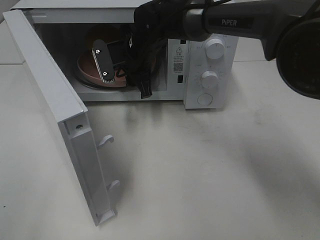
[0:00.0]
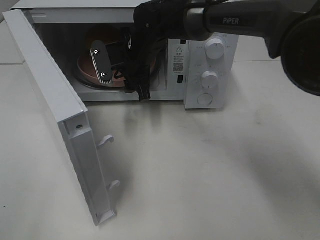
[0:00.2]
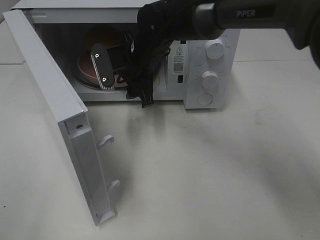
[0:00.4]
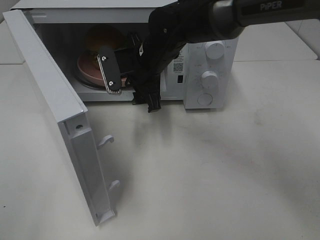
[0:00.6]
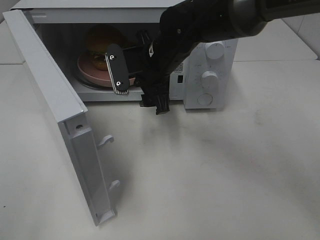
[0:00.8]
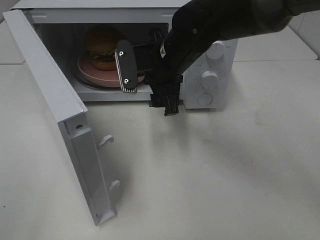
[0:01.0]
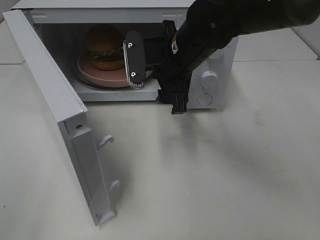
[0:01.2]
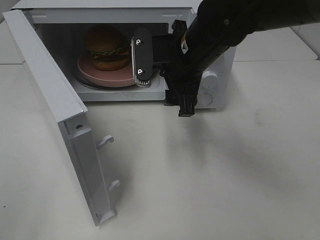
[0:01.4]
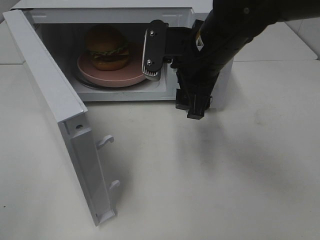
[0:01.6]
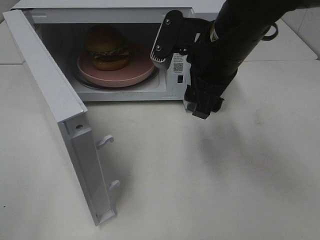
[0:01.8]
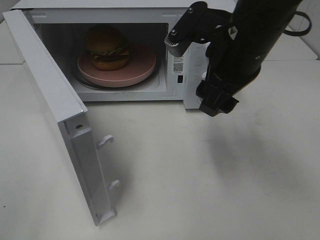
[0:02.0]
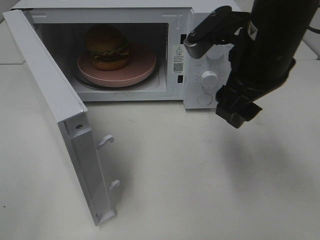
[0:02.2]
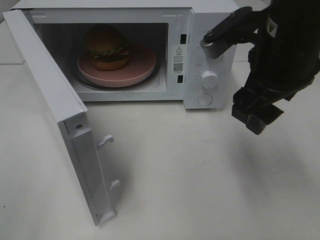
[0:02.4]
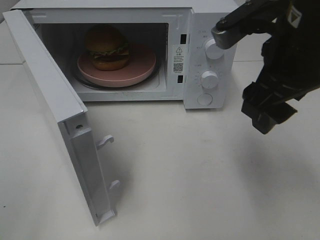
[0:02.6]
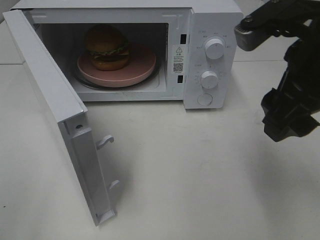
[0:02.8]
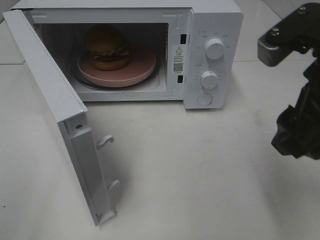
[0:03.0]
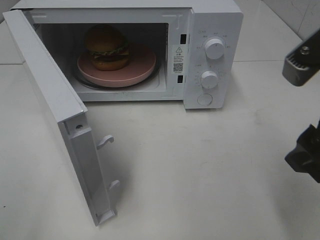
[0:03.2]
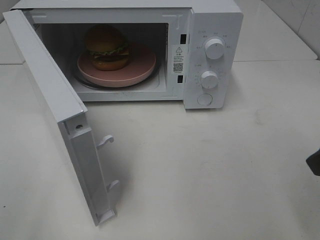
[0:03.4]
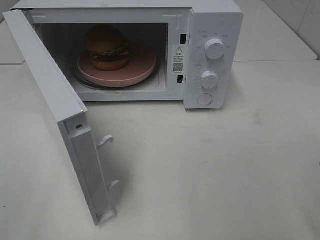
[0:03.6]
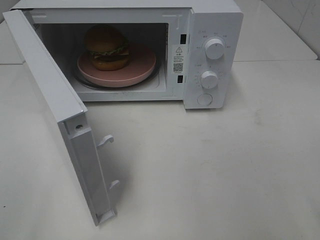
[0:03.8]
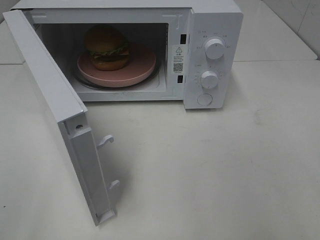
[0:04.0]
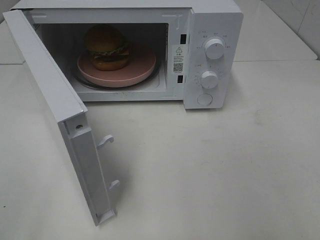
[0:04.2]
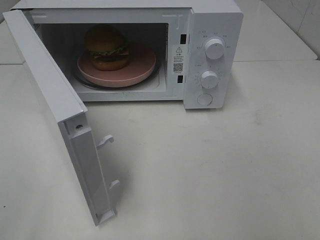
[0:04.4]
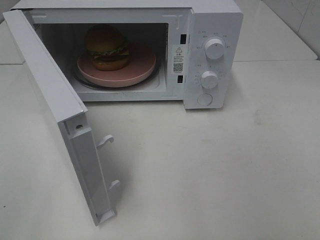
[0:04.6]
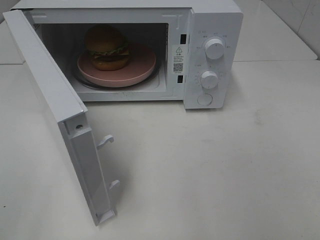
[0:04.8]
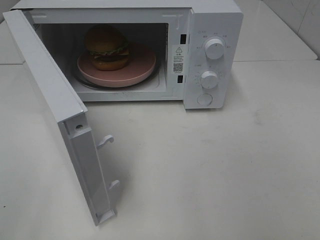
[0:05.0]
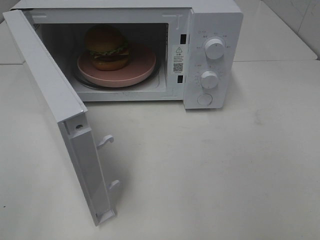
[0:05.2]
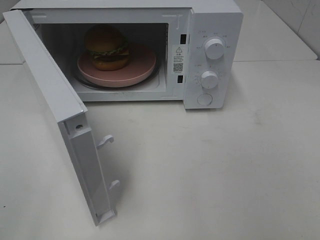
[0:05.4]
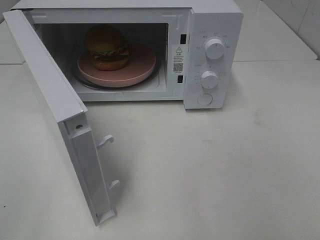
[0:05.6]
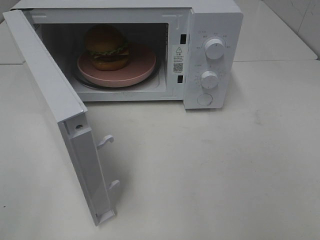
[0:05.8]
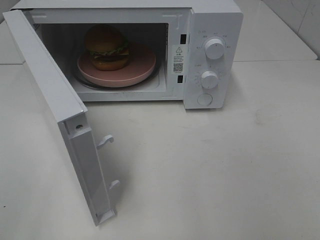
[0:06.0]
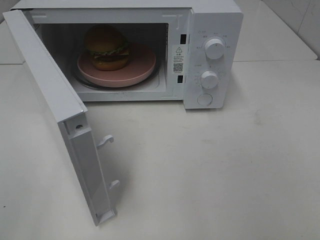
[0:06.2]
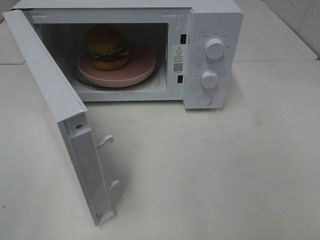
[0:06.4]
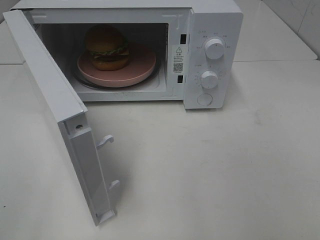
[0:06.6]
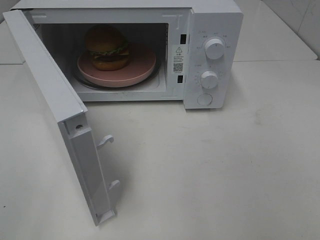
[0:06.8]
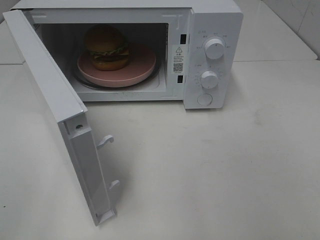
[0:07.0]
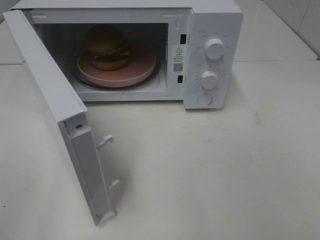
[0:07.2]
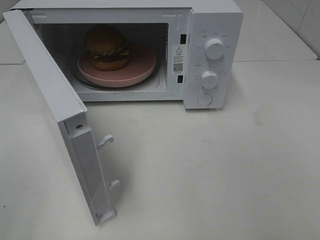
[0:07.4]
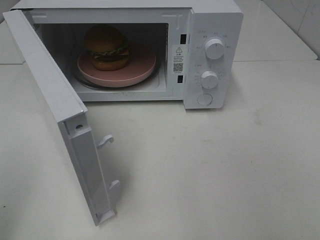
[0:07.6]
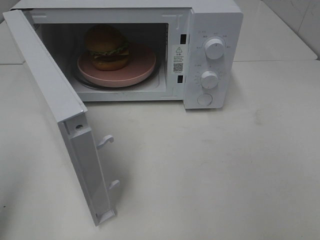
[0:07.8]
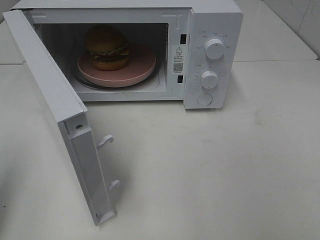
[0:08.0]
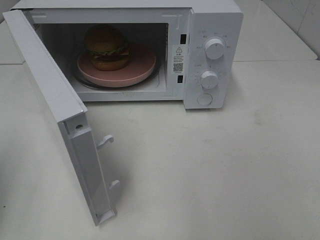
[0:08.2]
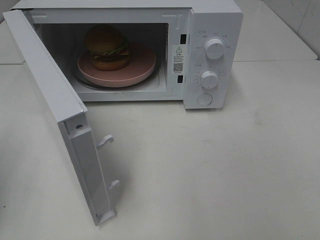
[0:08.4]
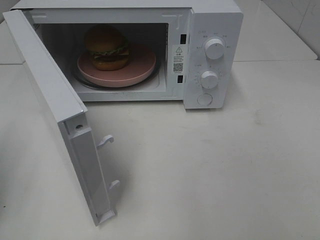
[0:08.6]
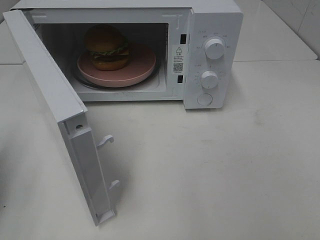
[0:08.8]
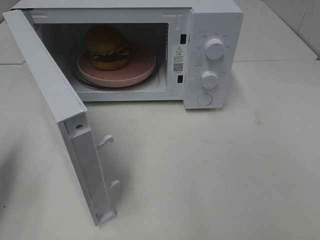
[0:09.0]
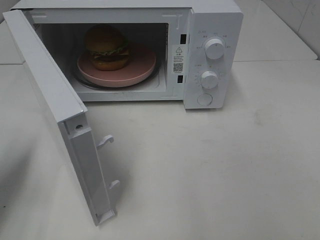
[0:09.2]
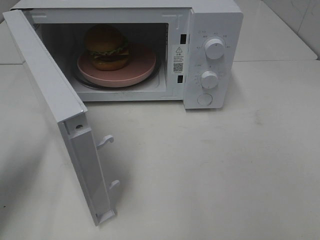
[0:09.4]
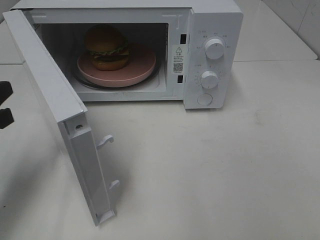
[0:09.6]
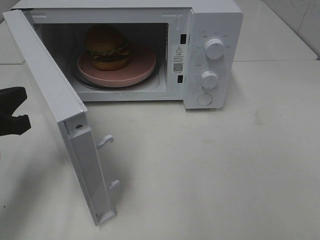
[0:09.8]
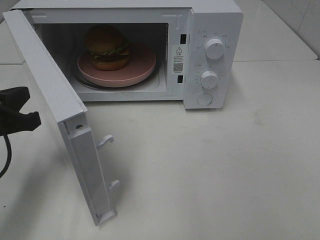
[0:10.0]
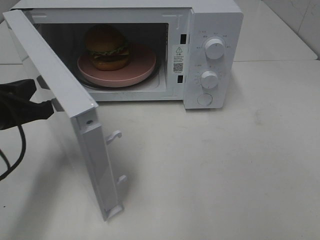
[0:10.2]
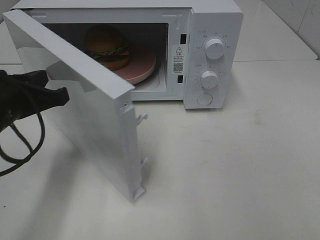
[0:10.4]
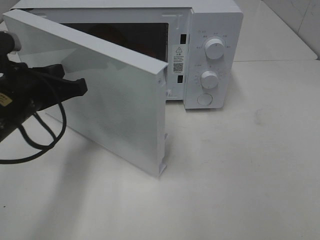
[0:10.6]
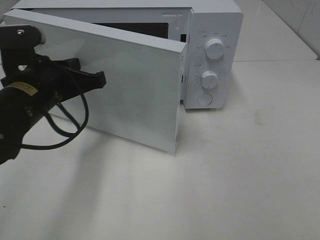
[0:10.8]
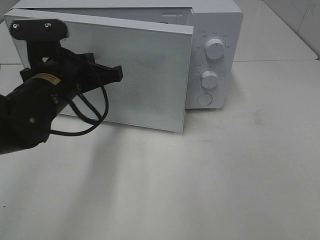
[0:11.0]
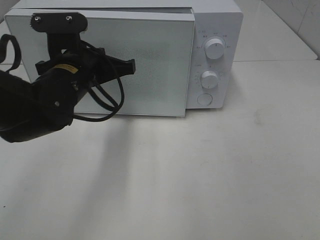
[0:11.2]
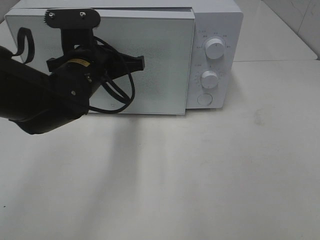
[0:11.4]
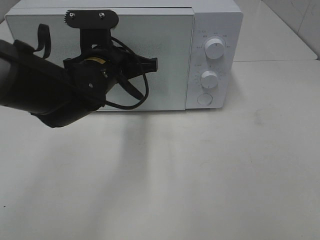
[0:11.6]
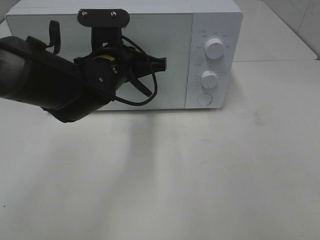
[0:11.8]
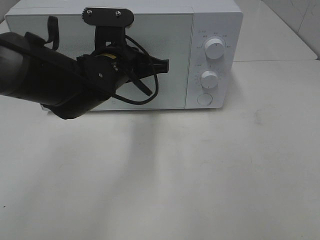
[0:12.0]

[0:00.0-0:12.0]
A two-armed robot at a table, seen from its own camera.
Task of the whole recording: Heat the burger.
0:00.0 to 0:01.6: The right gripper moves backward, to the right and upward, about 20 cm.
0:01.6 to 0:03.0: The right gripper is displaced backward, to the right and upward by some 20 cm.
0:03.0 to 0:04.4: The right gripper travels backward and to the right by about 20 cm.
0:07.6 to 0:09.0: The left gripper shifts about 15 cm forward and downward.
0:09.0 to 0:10.4: The left gripper goes approximately 10 cm to the right.
0:10.4 to 0:12.0: The left gripper goes about 15 cm to the right and forward.

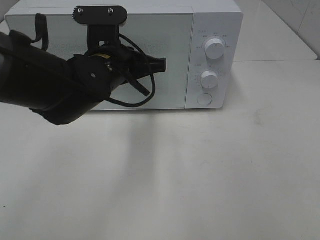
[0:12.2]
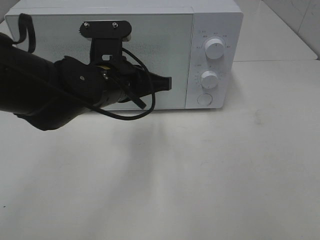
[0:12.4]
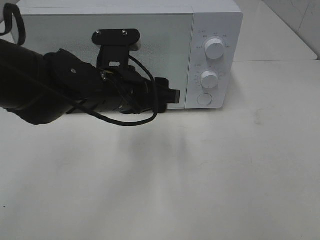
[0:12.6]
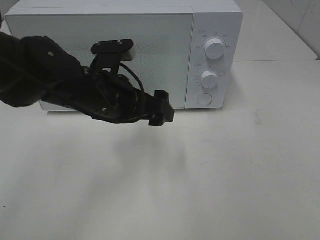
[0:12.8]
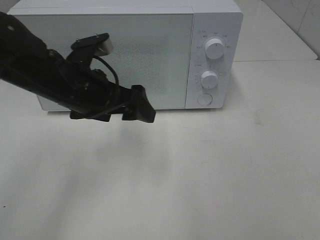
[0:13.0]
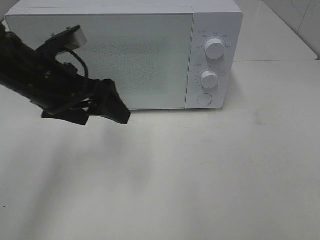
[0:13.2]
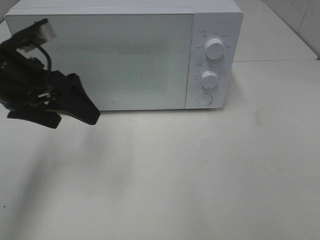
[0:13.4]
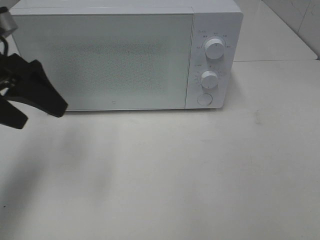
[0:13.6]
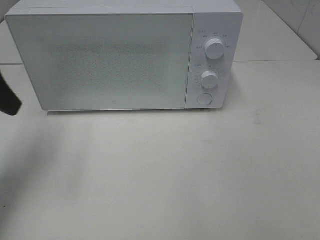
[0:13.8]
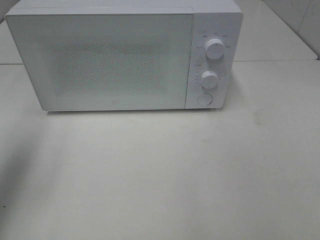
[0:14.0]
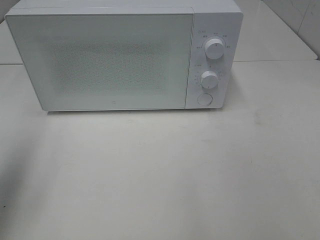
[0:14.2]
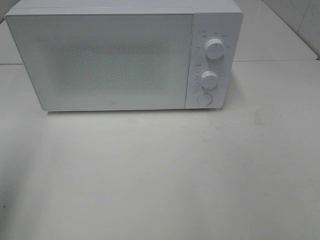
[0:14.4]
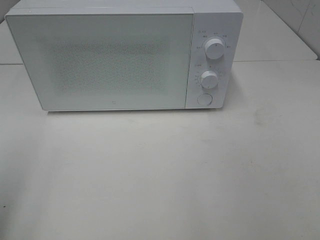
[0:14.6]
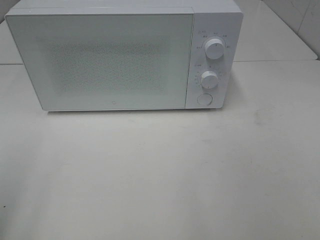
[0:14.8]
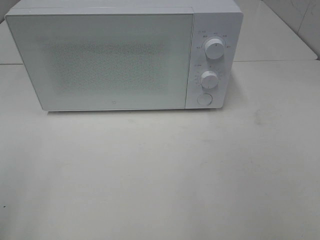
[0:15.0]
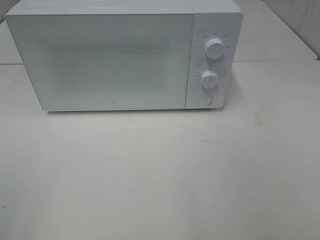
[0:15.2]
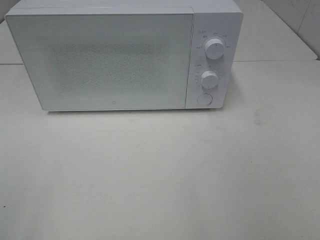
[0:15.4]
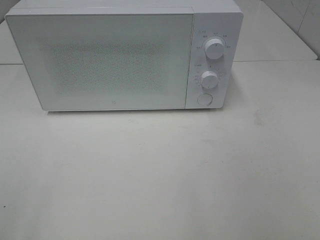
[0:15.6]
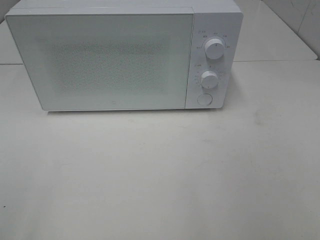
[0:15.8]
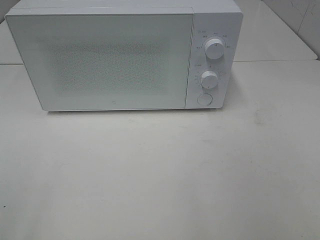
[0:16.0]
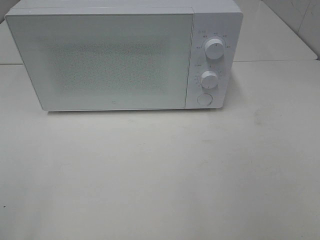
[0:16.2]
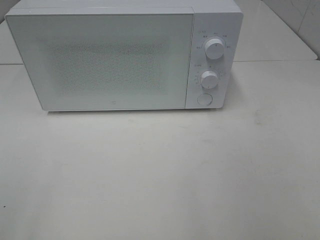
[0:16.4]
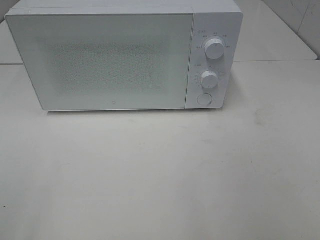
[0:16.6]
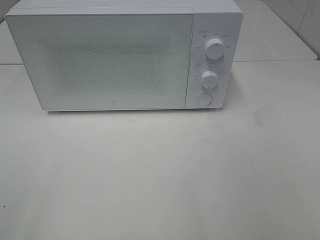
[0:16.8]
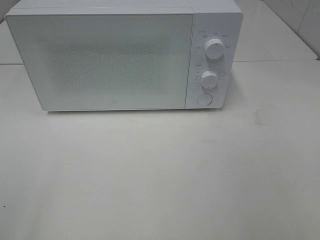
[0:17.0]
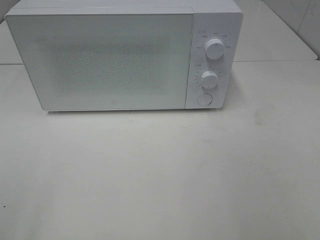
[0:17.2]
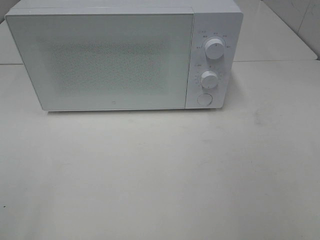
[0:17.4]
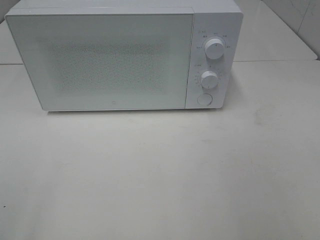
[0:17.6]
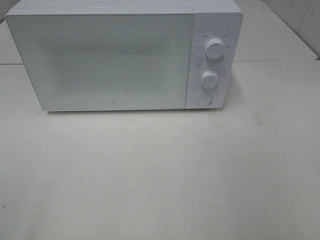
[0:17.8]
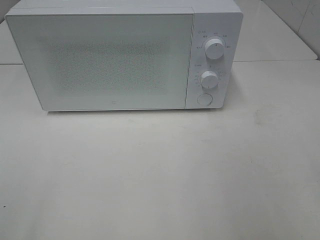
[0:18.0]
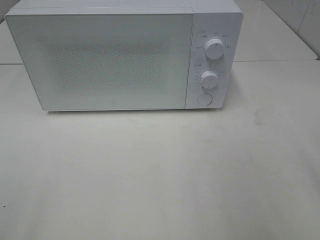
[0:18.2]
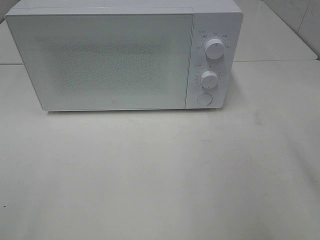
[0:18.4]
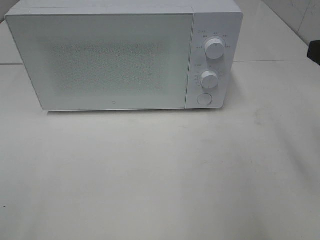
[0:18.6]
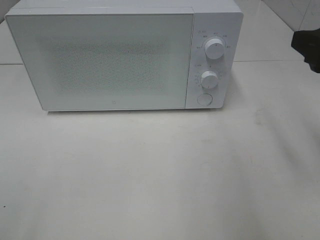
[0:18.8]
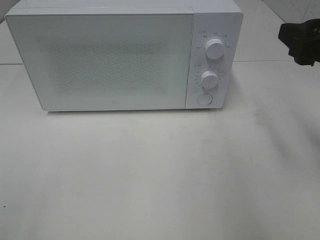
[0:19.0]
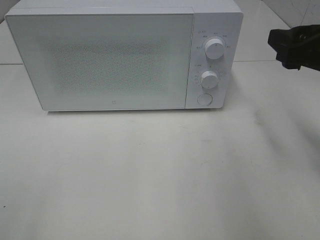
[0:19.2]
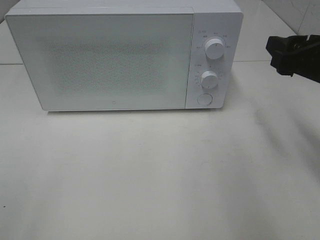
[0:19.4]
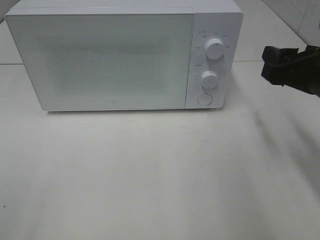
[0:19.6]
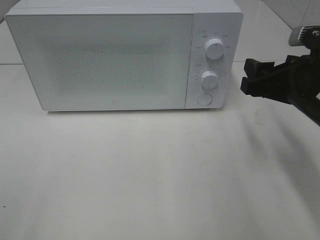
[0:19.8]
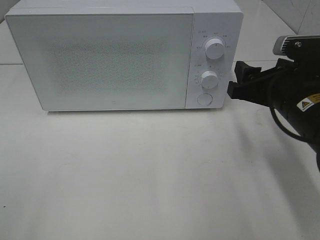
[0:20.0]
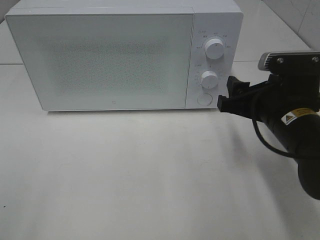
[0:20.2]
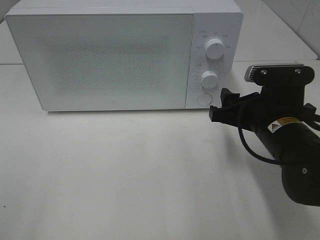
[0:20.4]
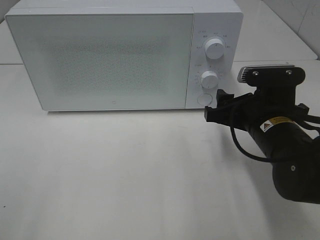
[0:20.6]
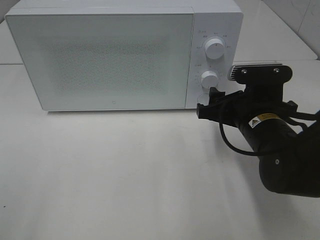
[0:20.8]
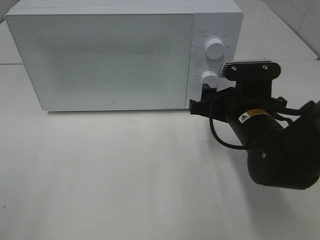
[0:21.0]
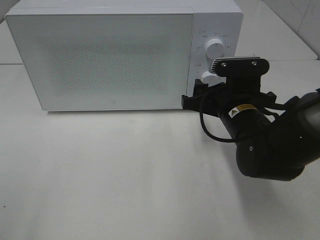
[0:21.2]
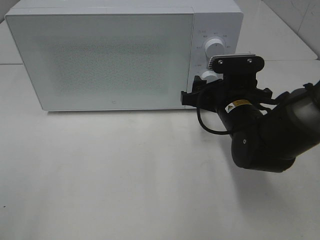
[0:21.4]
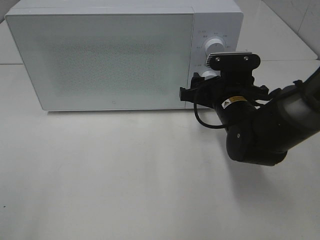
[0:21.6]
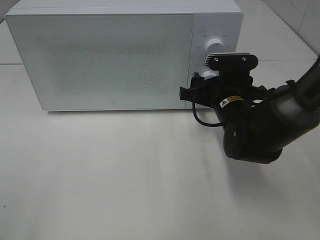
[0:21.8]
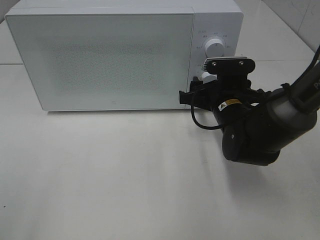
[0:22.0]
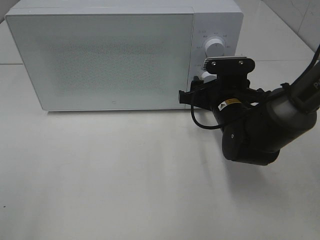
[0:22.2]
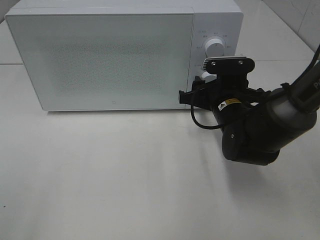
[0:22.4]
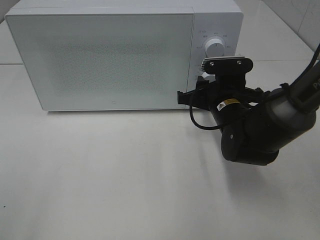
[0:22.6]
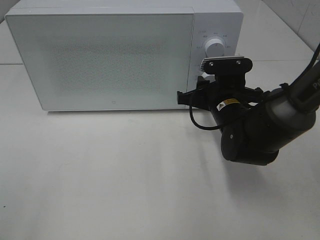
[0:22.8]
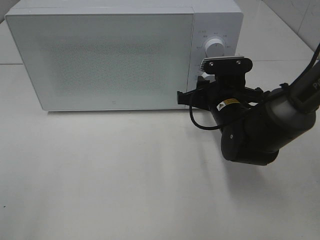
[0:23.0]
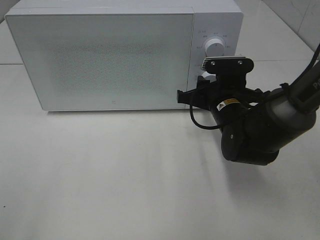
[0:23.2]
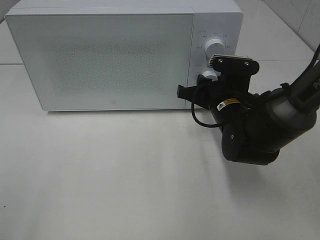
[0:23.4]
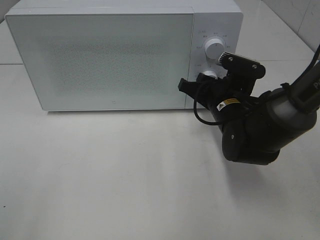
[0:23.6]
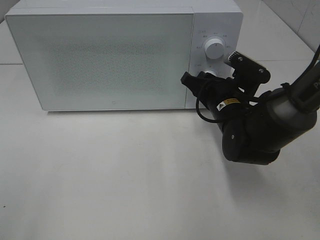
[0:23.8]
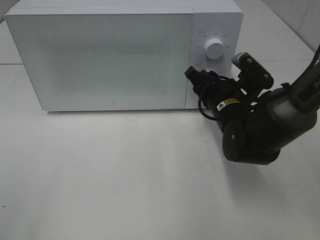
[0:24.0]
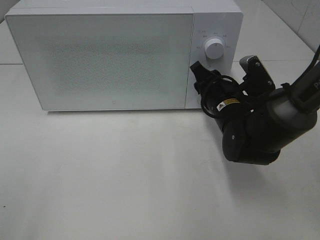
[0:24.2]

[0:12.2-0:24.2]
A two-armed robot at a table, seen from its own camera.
Task of the whole recording: Heat the burger.
0:12.2 to 0:13.8: The left gripper moves to the left, about 25 cm, and opens.
0:13.8 to 0:15.2: The left gripper moves backward, some 20 cm.
0:18.2 to 0:19.8: The right gripper is displaced forward, downward and to the left by about 15 cm.
0:19.8 to 0:21.2: The right gripper moves to the left and downward, approximately 10 cm.
0:21.2 to 0:22.6: The grippers make only small movements.
